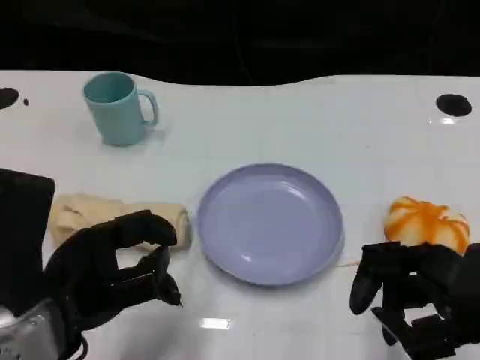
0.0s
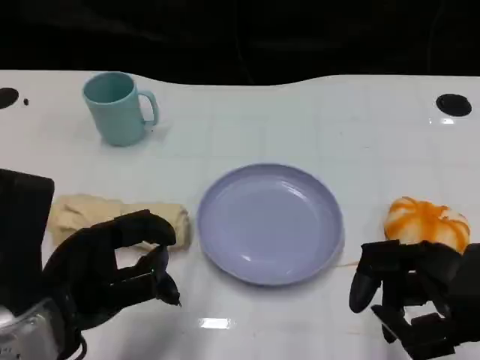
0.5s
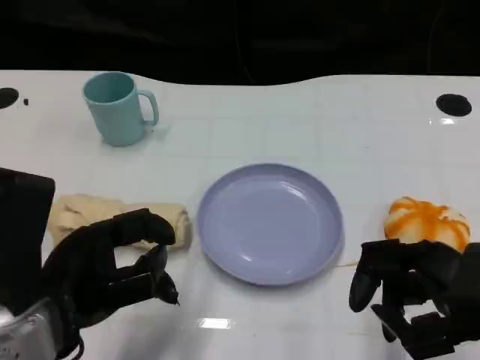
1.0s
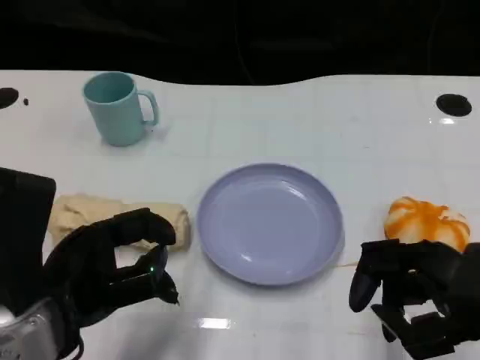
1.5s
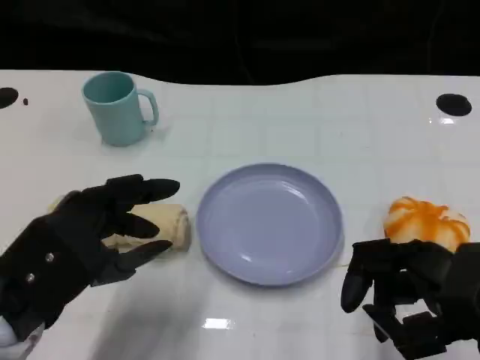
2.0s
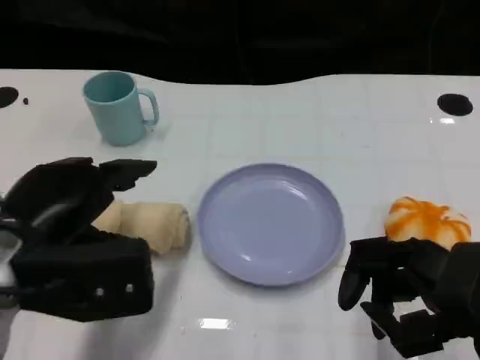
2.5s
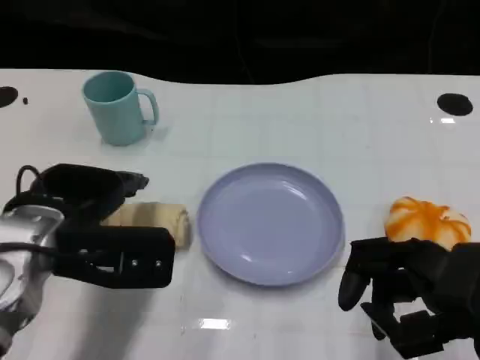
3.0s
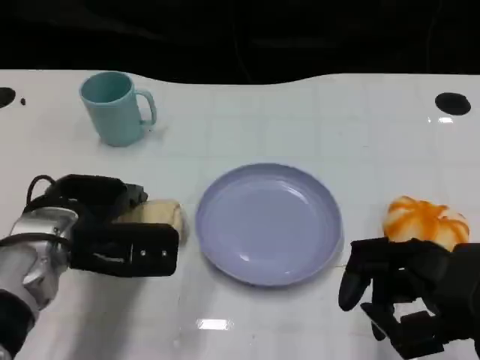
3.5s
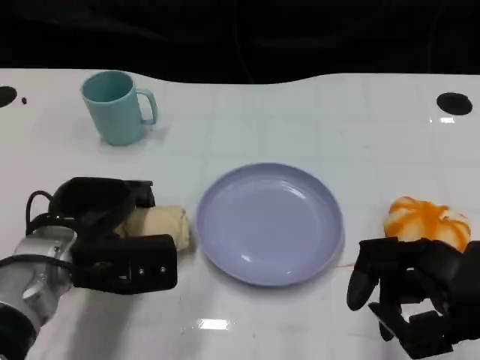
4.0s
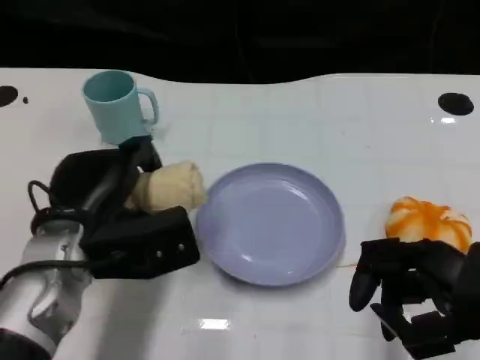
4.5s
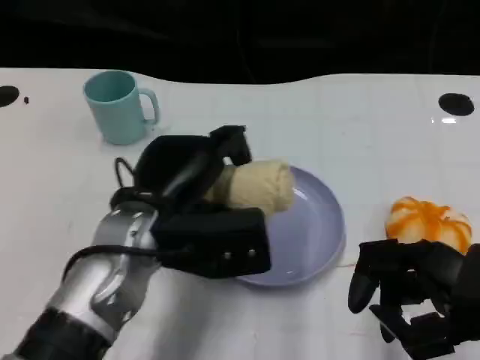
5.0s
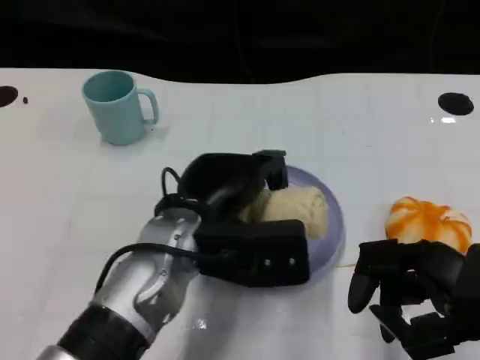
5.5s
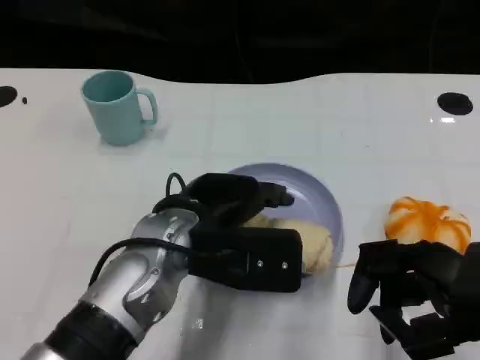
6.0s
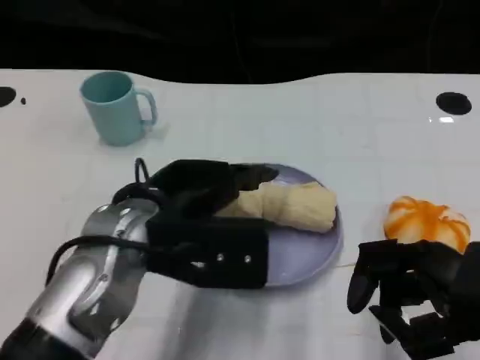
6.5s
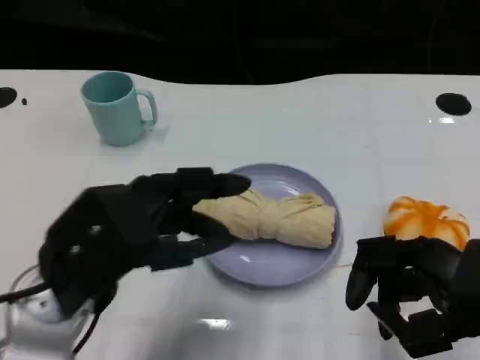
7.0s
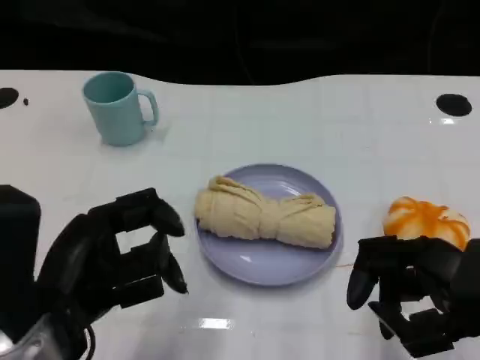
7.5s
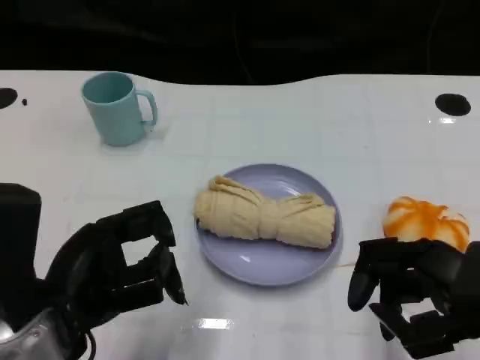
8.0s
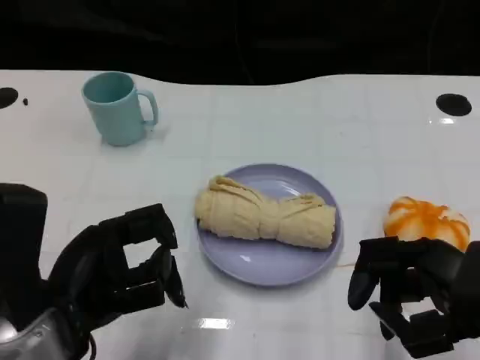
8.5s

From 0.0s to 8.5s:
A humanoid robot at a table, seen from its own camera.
Task of the whole recording: Grasp the towel on the left side of the plate with the left hand and place it into the plate.
From 2.0s to 4.0s: The left hand shifts some 10 cm forward and downward.
From 4.0s to 6.5s: The left hand travels upward and to the right by about 10 cm.
From 6.5s to 8.5s: The left hand is displaced to the left and backward by some 10 cm.
